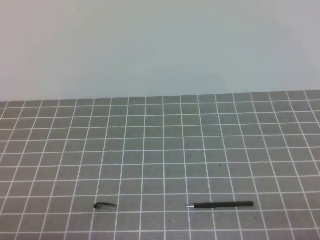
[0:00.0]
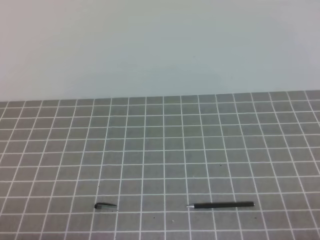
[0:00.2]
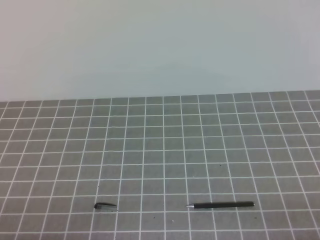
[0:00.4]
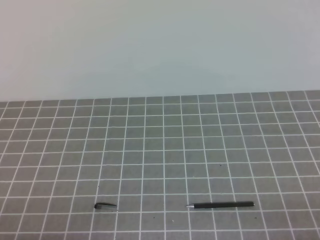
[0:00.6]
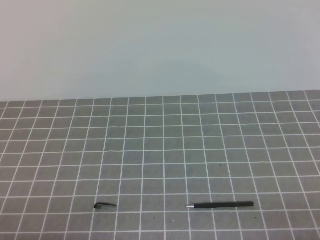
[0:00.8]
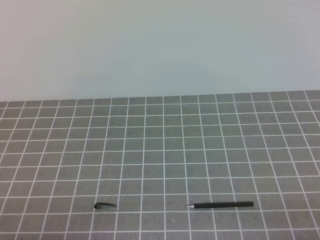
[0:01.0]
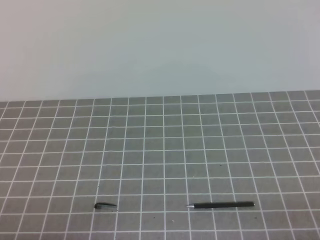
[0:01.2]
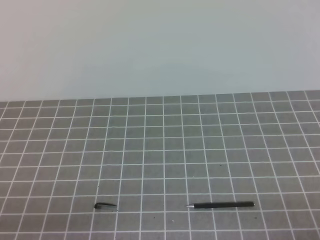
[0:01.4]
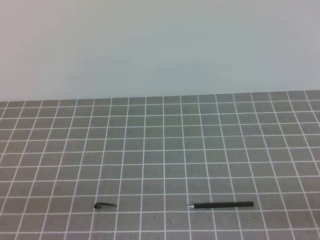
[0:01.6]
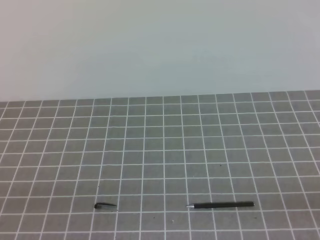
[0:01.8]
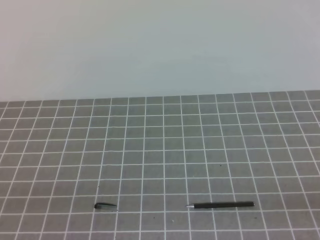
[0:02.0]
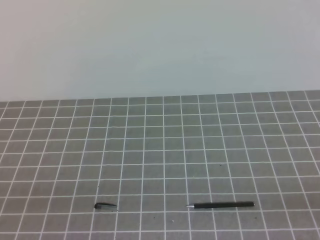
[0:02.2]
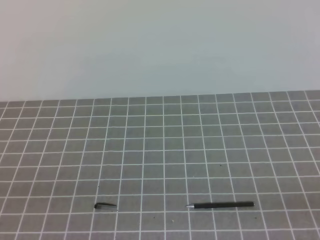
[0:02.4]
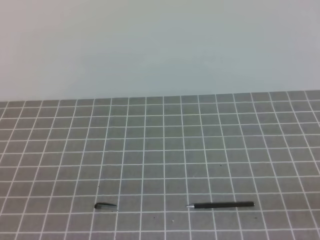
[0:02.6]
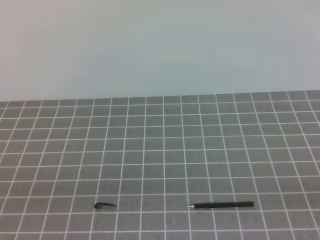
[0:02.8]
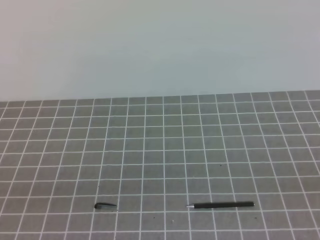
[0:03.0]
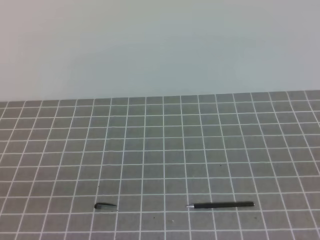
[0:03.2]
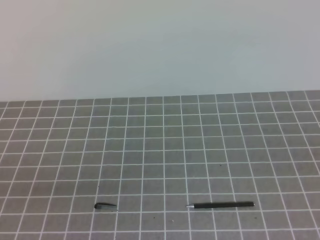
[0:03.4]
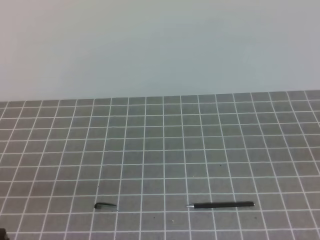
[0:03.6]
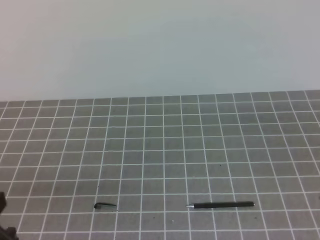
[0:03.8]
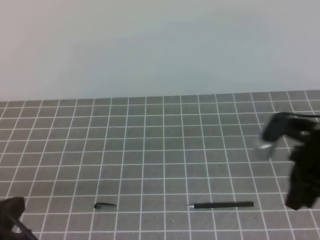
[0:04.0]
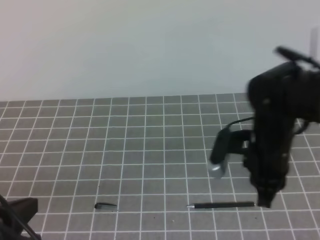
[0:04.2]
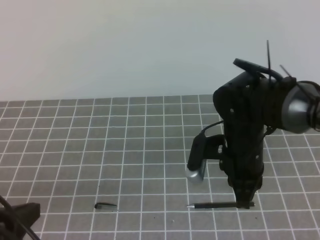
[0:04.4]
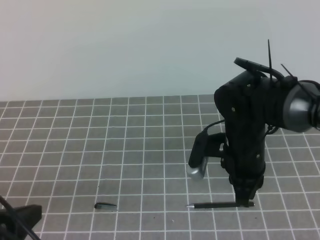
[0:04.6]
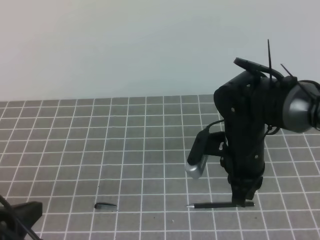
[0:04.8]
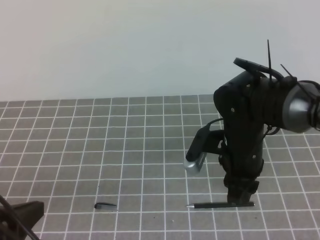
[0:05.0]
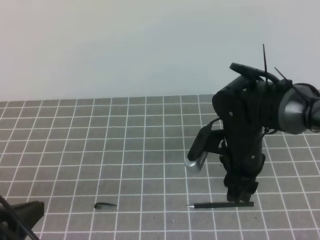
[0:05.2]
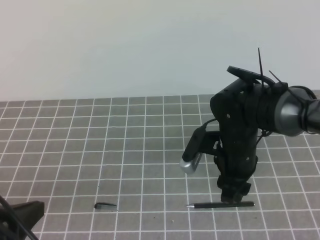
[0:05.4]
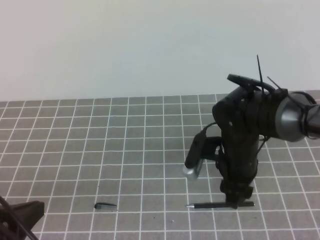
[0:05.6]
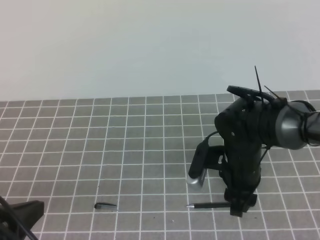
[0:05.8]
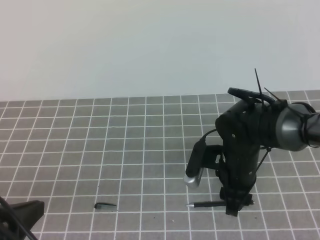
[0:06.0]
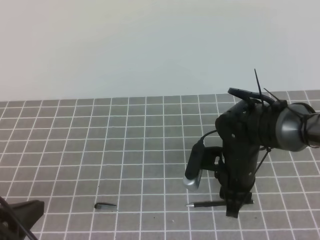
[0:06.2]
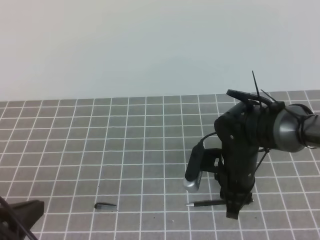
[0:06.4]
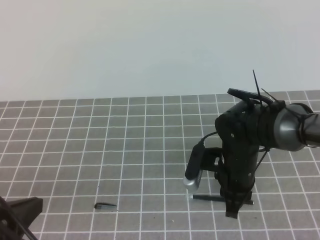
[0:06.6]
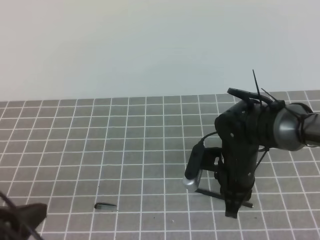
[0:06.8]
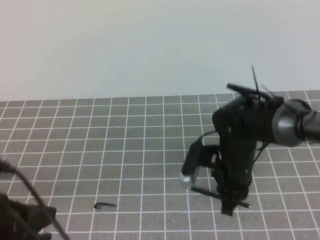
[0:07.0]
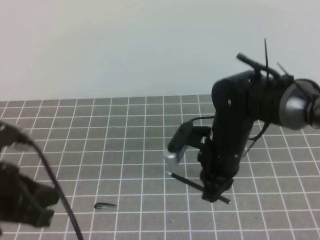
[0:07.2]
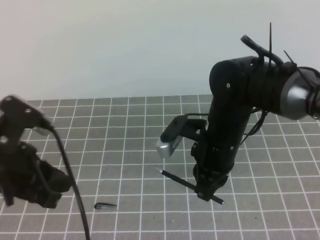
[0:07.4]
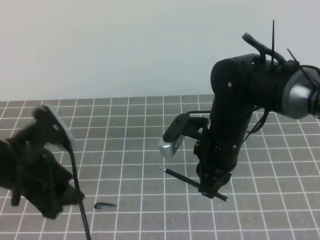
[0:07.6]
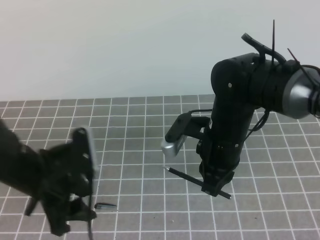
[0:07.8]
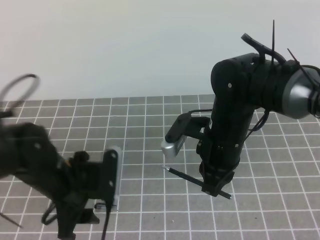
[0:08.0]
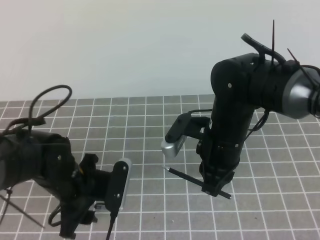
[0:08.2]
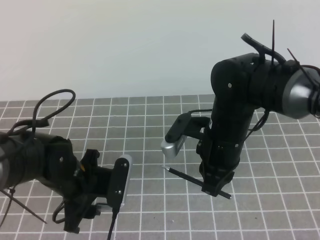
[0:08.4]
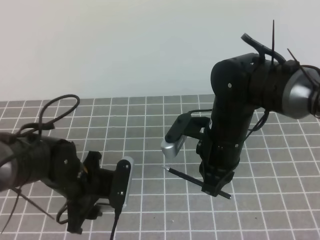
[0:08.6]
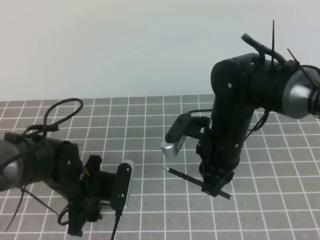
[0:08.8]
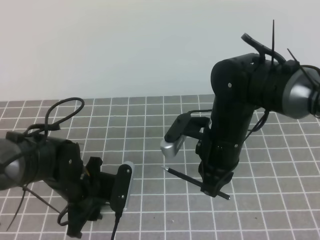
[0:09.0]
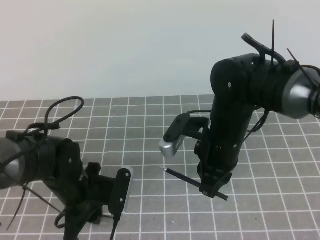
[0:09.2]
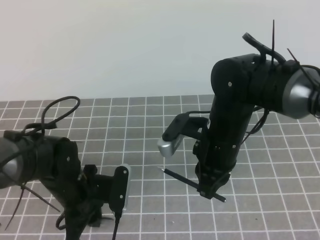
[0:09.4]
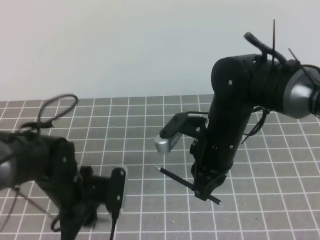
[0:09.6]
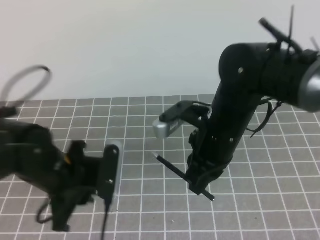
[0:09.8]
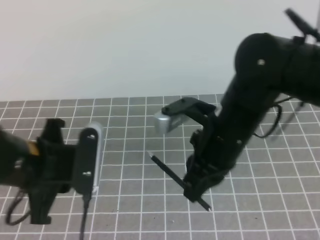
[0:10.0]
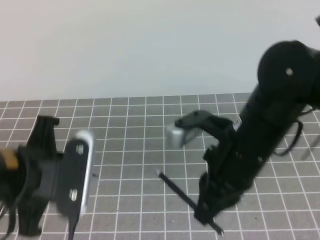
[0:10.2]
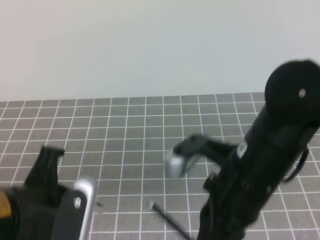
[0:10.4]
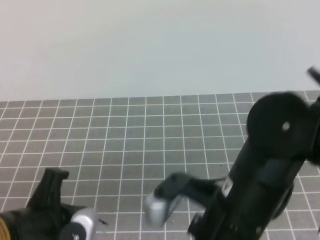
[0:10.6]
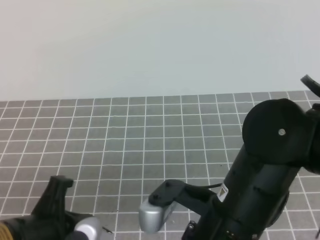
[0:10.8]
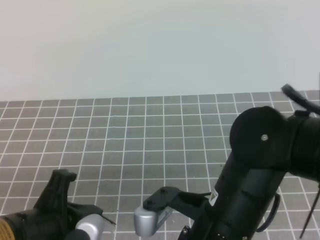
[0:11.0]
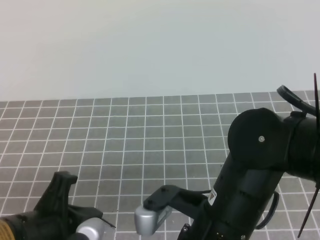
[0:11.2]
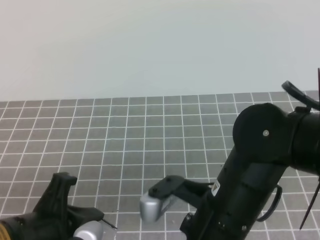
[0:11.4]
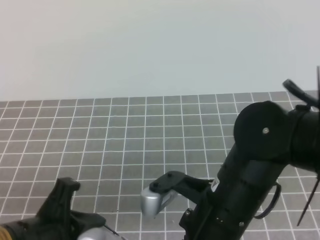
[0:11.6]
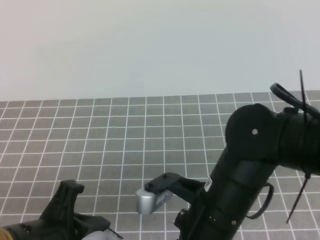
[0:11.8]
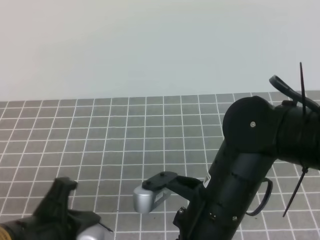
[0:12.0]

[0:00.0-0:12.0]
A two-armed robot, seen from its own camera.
Task of the whole recording: on the grey tablecloth, hold the pen cap in one hand and the pen in the other, then cover the pen cap.
Step, 0:00.0 to 0:04.4: Pick up the pen.
Step, 0:04.6 to 0:06.0: Pick up the pen cap.
Step, 0:06.2 to 0:09.8: Insert the pen into the cap.
Step, 0:10.0 to 0:11.0: Place the pen on the table.
0:03.0 to 0:04.4: The right gripper heads forward and to the left, covering some 35 cm, while the left gripper is displaced forward by some 10 cm.
0:04.4 to 0:06.0: The right gripper goes some 5 cm downward, and opens its fingers.
0:06.0 to 0:07.6: The left gripper goes roughly 10 cm forward, and opens its fingers, while the right gripper heads upward, covering roughly 5 cm, and closes.
0:07.6 to 0:09.0: The left gripper shifts roughly 15 cm downward, to the right and forward.
0:09.0 to 0:10.4: The right gripper shifts roughly 10 cm backward and upward. The left gripper is displaced upward and backward by approximately 20 cm, and closes.
0:10.4 to 0:12.0: The right gripper shifts by some 5 cm; the left gripper changes place by some 5 cm.

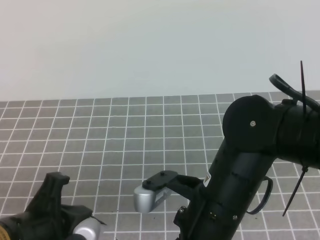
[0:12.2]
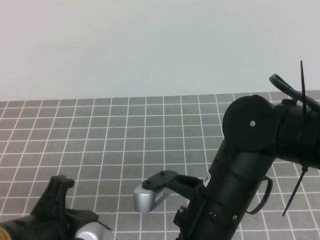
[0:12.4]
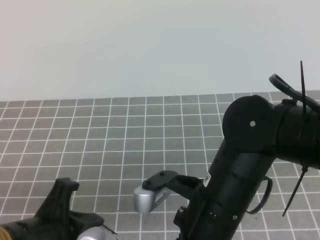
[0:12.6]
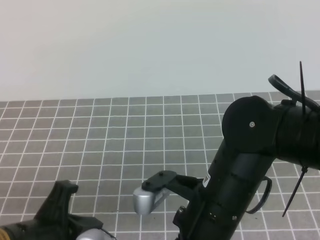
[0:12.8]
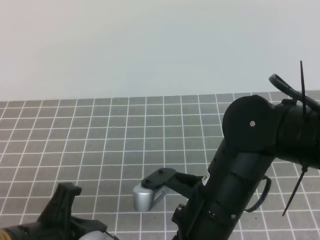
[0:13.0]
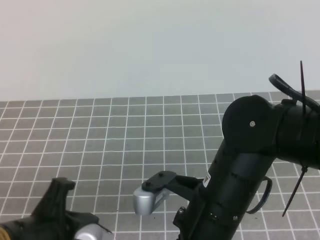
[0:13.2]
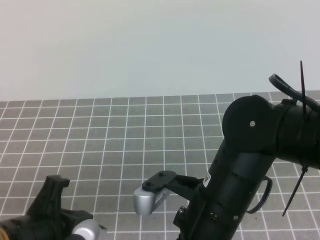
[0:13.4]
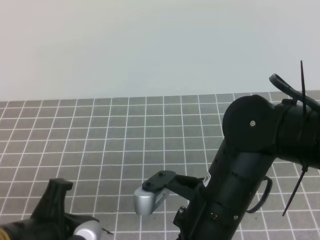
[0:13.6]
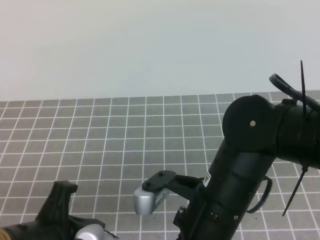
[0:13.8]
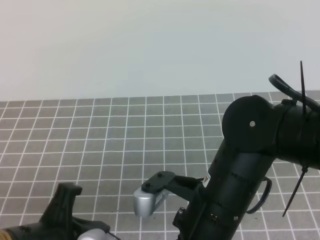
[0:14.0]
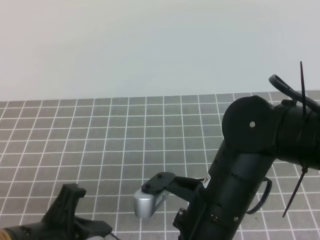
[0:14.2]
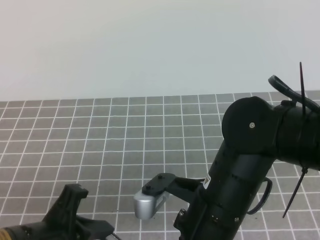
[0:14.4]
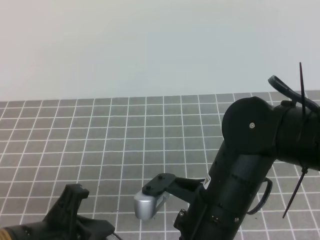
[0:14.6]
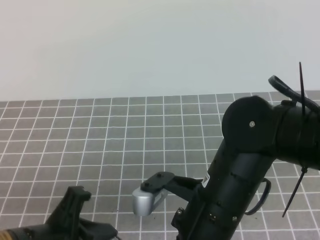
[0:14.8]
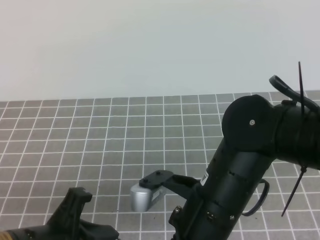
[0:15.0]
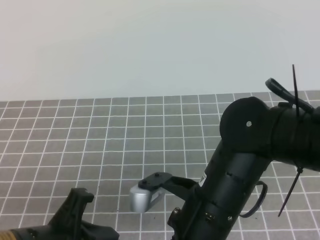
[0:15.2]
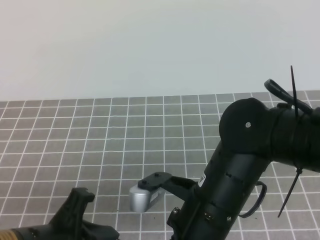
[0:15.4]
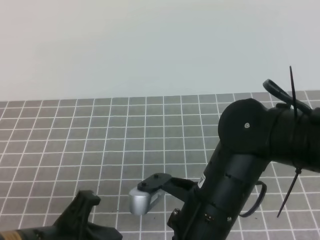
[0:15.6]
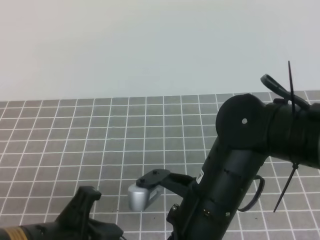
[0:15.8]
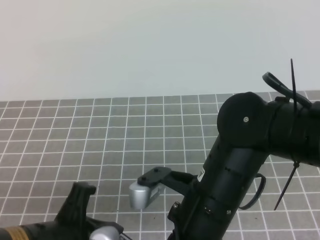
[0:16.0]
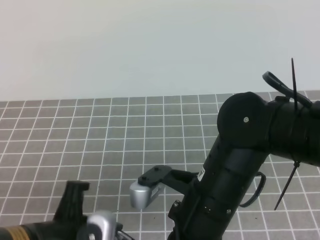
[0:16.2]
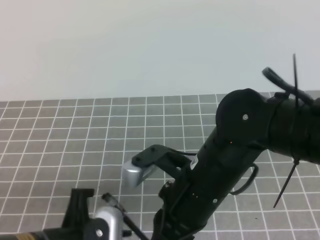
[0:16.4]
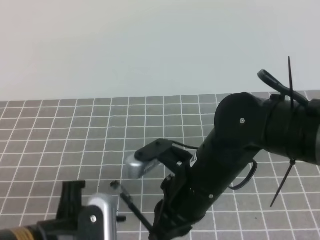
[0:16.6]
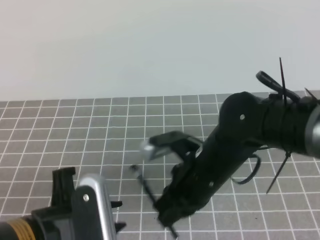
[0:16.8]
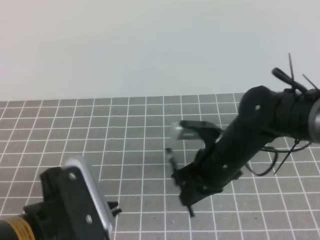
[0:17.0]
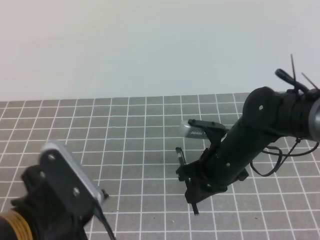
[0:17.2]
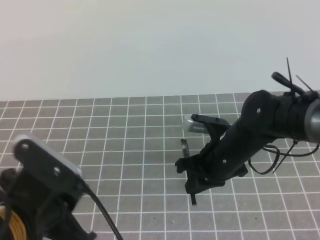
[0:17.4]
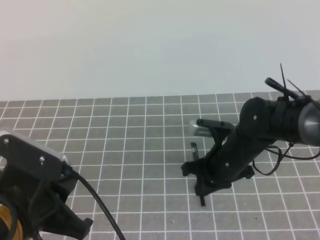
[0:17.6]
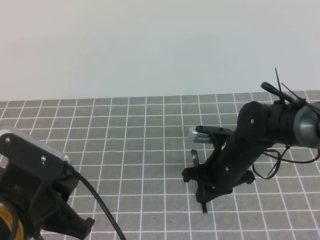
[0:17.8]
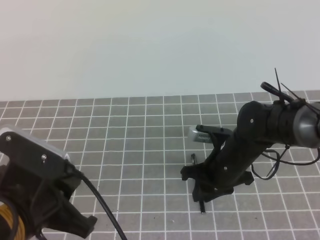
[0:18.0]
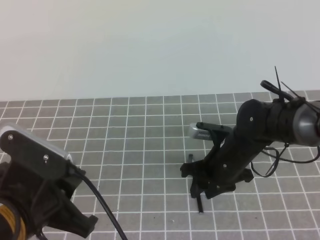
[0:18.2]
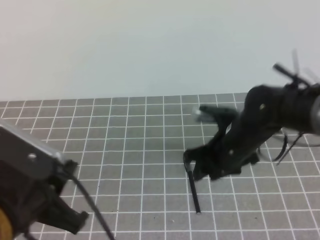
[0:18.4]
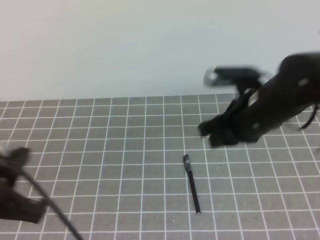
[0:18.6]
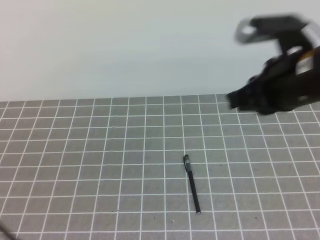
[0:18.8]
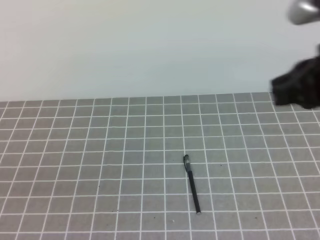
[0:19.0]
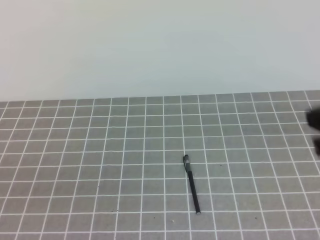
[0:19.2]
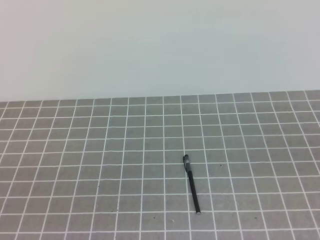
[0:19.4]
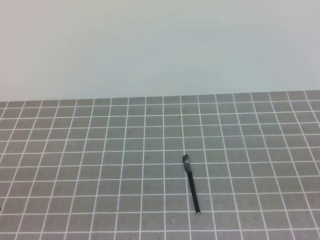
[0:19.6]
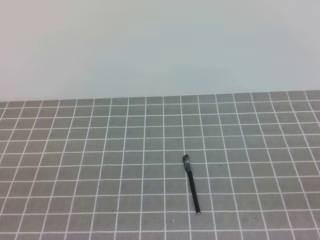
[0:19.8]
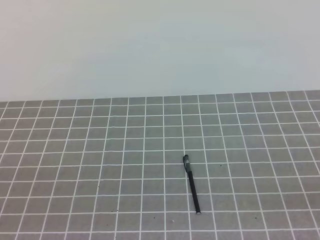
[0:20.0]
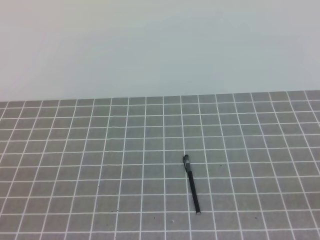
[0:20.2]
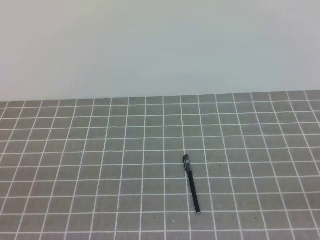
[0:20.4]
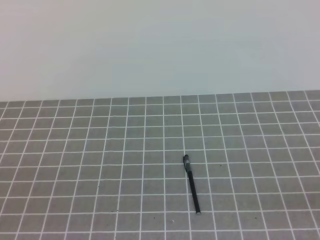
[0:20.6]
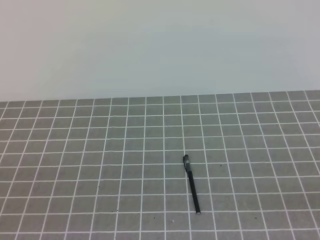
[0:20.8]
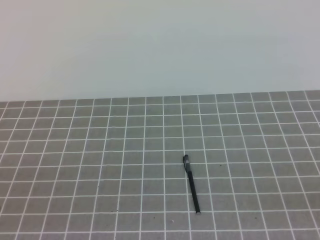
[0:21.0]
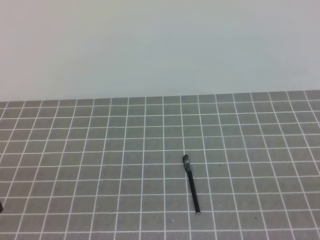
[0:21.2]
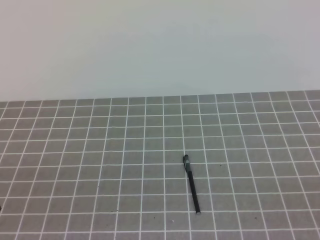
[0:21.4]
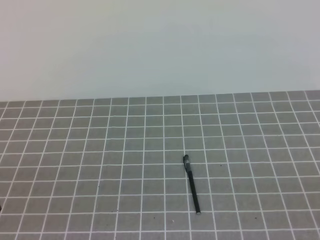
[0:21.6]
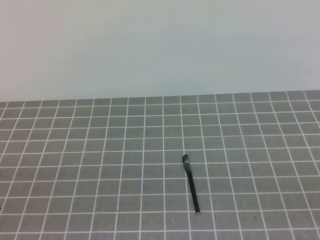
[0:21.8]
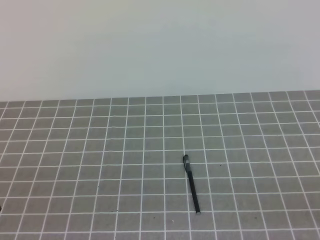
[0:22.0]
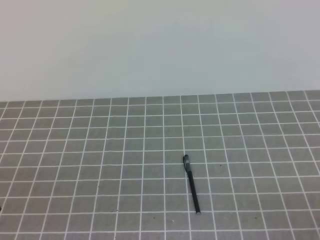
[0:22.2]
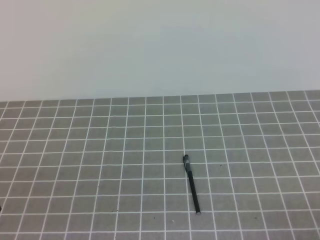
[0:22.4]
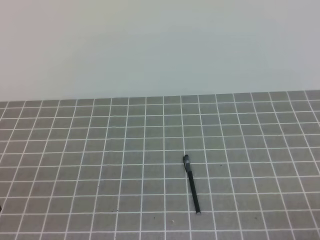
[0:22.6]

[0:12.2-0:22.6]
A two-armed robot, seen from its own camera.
Task of the whole recording: on the grey tablecloth, hold the pen cap in one hand and the pen in the other, then cover the pen cap.
0:12.2 to 0:15.2: The grippers stay close to where they were, moving slightly.
0:15.2 to 0:16.6: The left gripper opens up.
0:16.6 to 0:18.2: The right gripper shifts roughly 15 cm forward, downward and to the right, and opens up; the left gripper closes up.
0:18.2 to 0:19.6: The left gripper moves backward and to the left, some 15 cm; the right gripper goes some 35 cm backward, to the right and upward, and closes.
